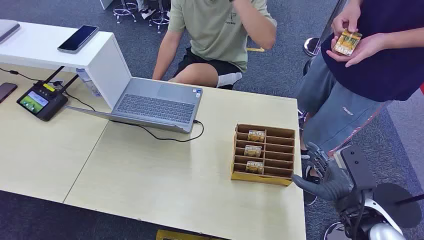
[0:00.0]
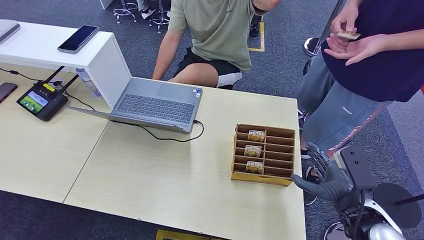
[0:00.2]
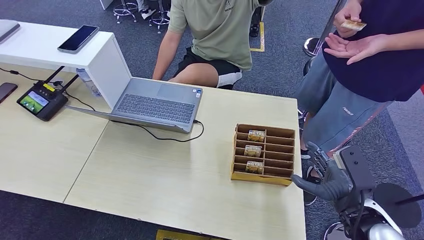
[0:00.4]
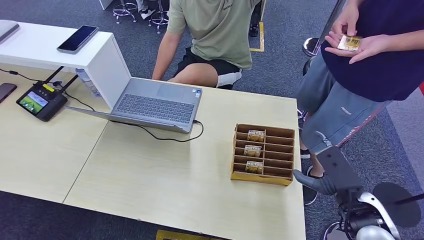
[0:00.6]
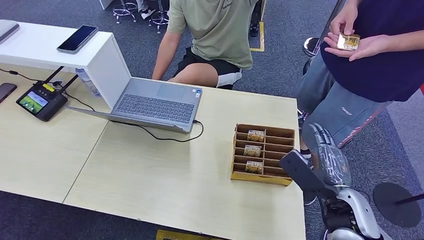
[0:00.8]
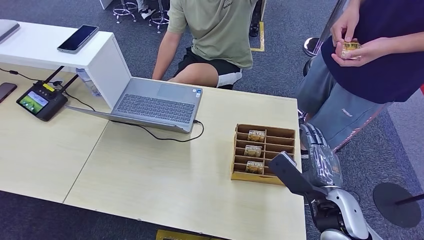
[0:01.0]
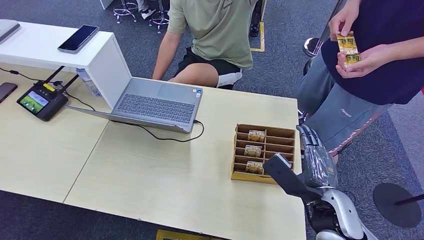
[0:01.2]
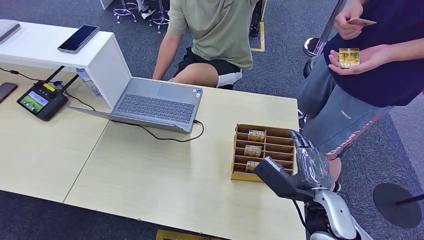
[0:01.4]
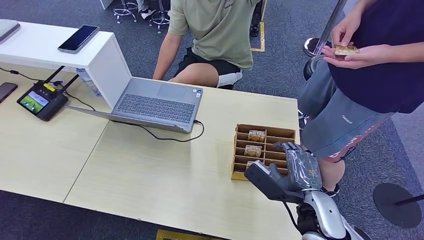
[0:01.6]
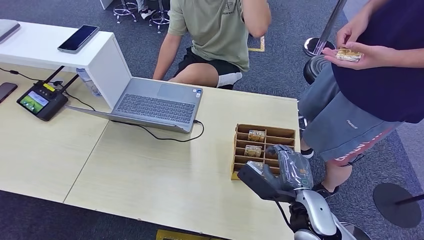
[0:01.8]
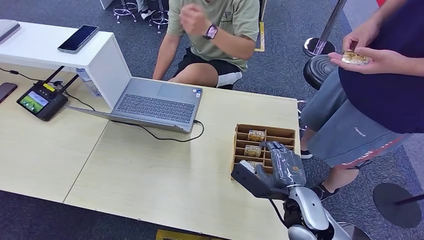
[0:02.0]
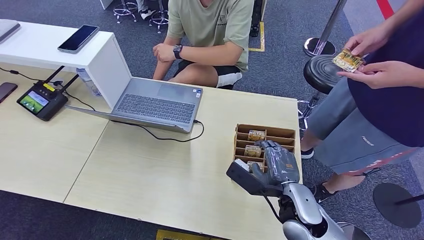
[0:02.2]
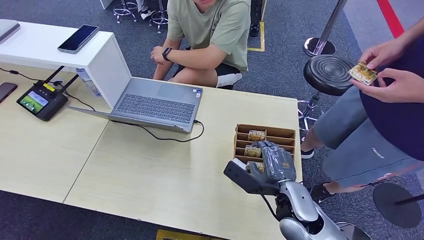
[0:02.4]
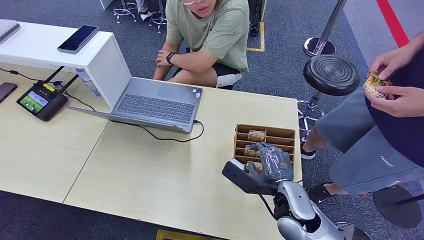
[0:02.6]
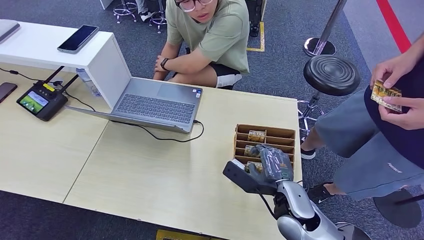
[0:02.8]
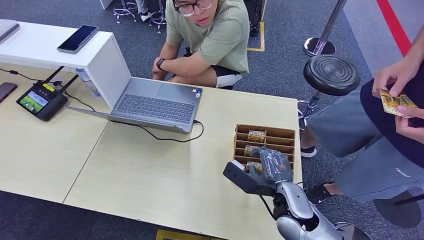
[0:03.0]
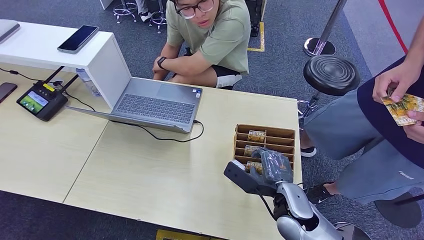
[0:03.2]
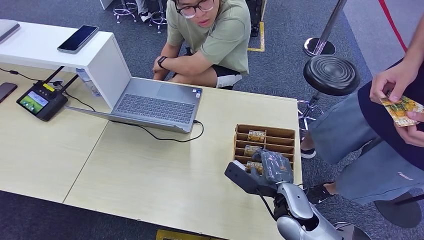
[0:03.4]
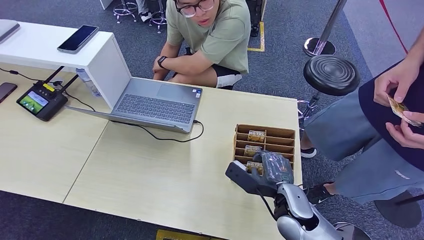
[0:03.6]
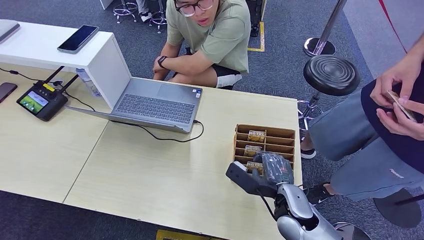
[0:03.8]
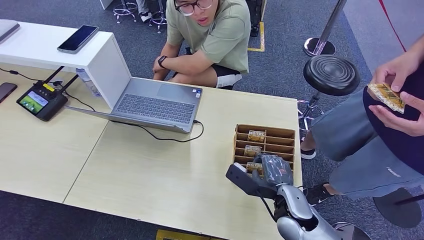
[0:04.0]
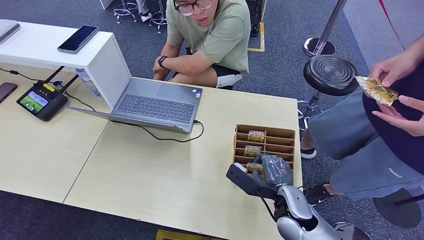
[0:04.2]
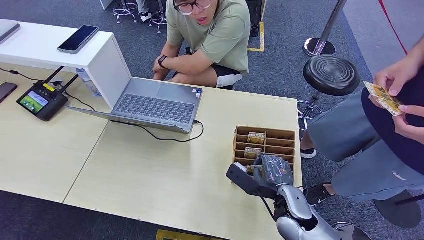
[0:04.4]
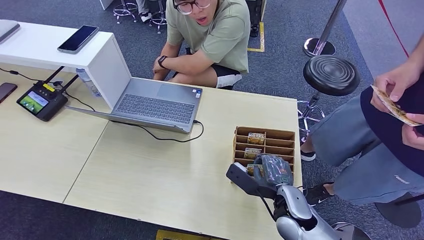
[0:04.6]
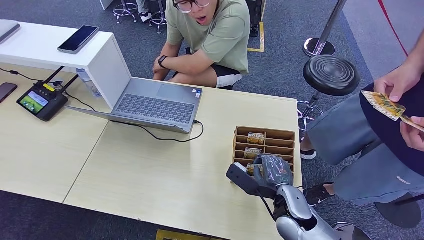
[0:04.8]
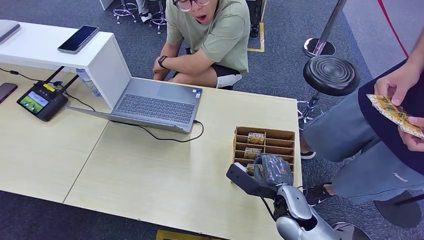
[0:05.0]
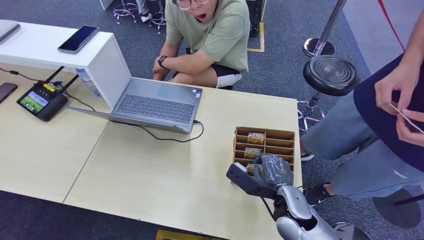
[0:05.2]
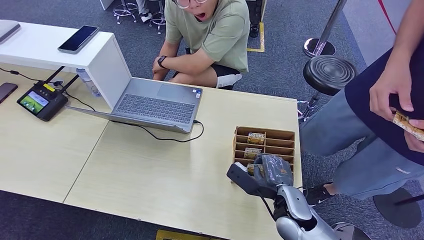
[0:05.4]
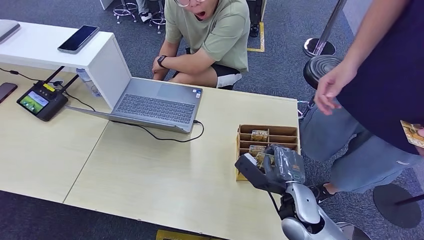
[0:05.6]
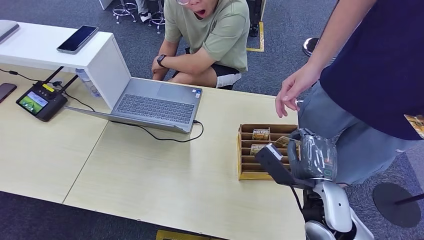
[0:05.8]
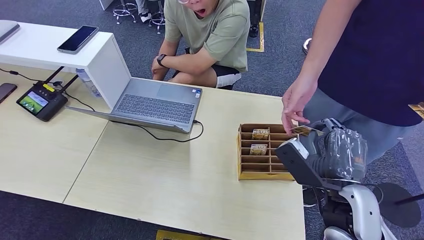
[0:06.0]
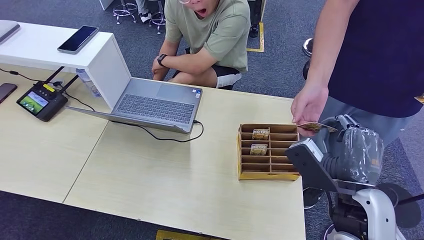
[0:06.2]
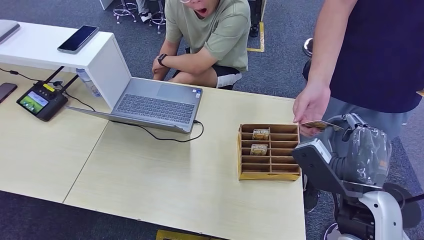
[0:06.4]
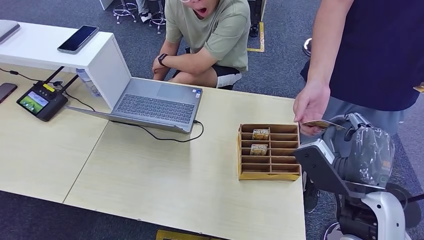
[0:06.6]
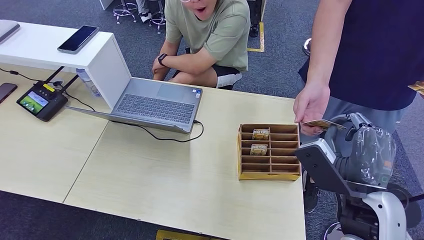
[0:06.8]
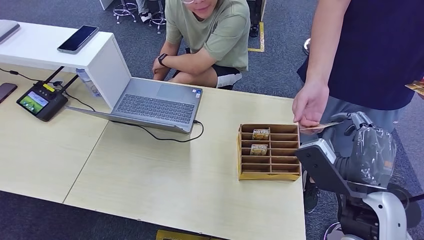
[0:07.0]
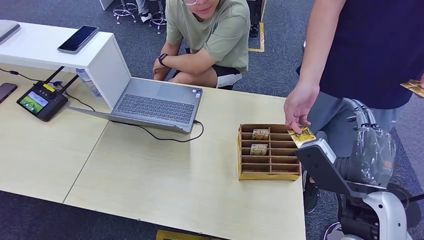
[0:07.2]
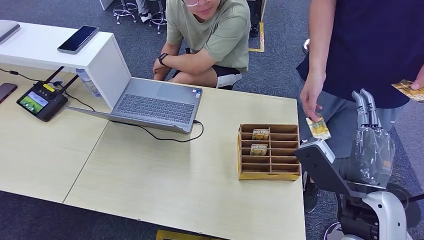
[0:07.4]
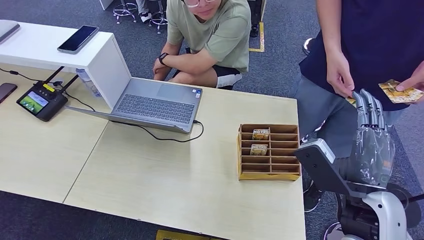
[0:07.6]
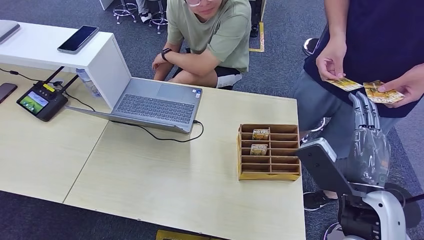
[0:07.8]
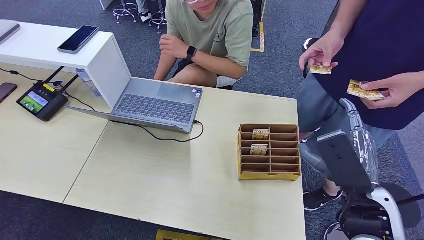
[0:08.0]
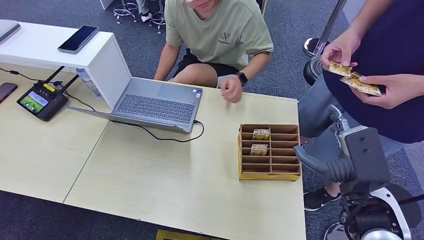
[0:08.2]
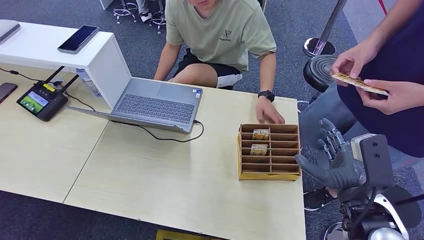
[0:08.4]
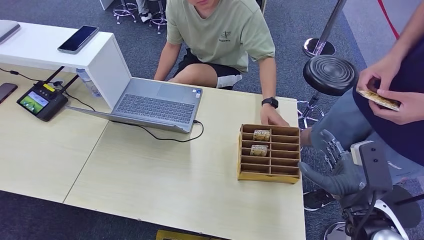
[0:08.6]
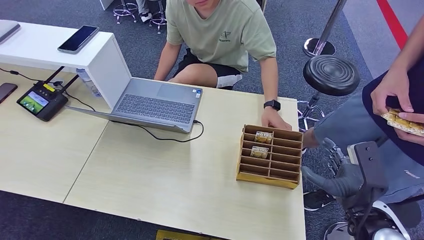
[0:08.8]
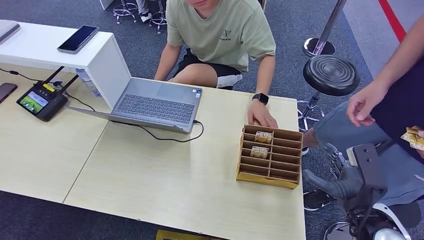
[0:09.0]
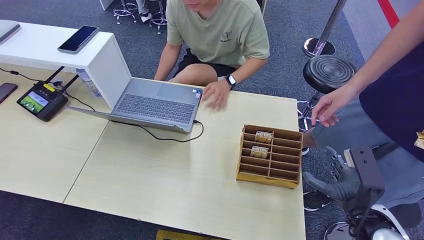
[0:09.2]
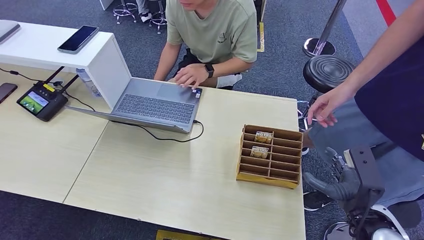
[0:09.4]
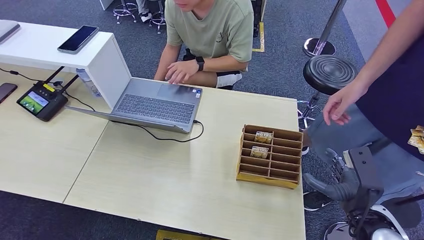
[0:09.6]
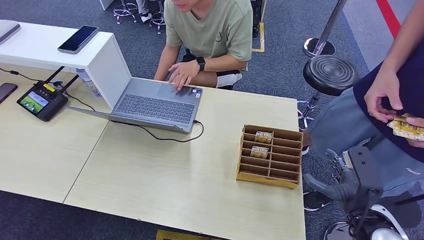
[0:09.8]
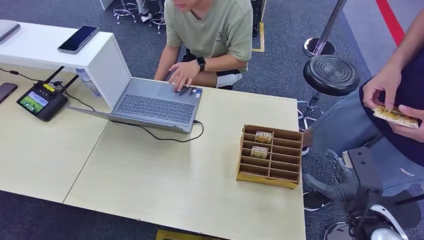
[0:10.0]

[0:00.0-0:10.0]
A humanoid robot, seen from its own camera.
Step, 0:00.0 to 0:05.4: Pick up the key card from the card box.
Step, 0:05.6 to 0:09.8: Hand the key card to the target.
0:02.8 to 0:04.2: The hands move only a little.
0:05.8 to 0:07.2: The right hand goes roughly 10 cm upward.
0:08.6 to 0:10.0: The right hand ends up some 5 cm from where it was.

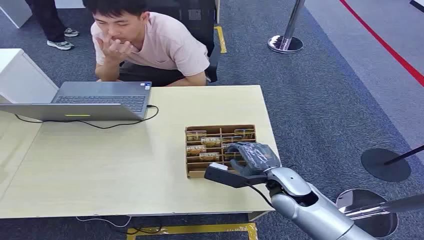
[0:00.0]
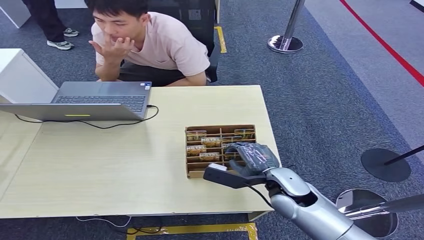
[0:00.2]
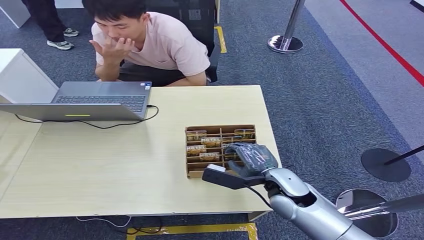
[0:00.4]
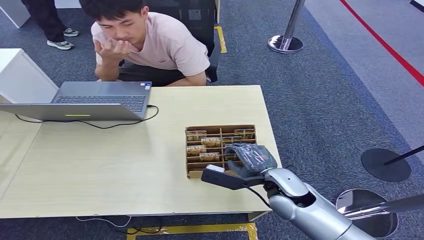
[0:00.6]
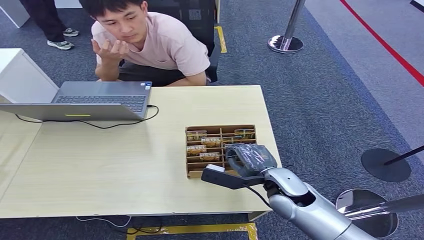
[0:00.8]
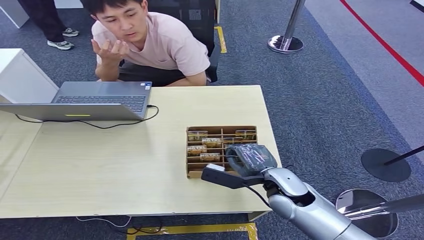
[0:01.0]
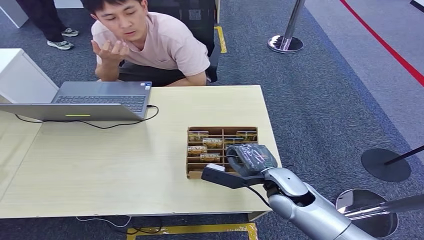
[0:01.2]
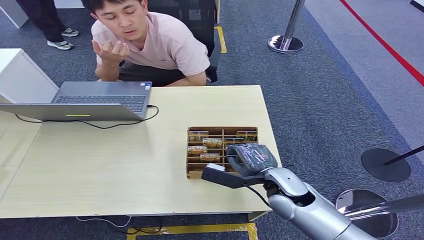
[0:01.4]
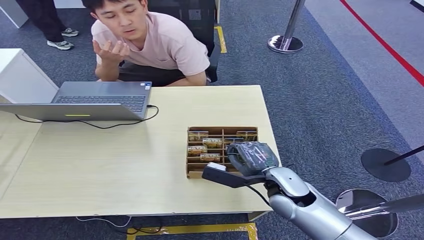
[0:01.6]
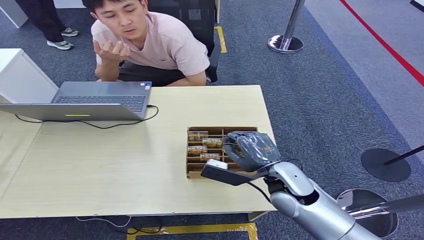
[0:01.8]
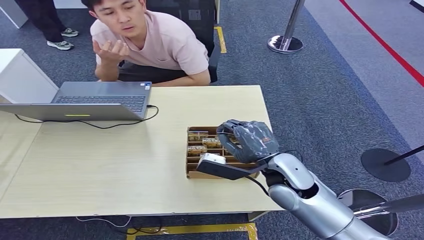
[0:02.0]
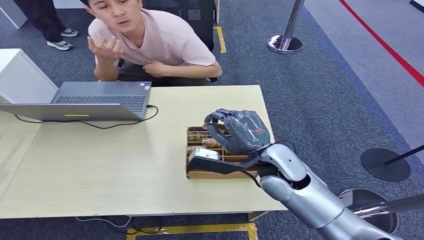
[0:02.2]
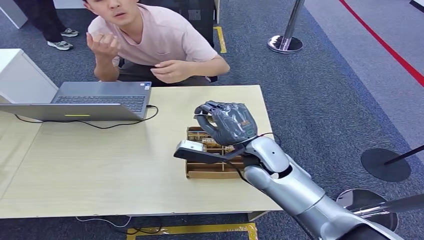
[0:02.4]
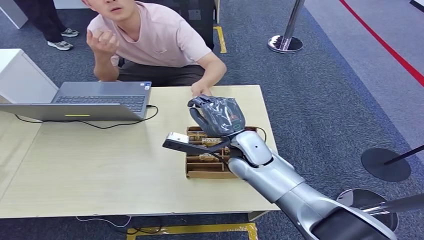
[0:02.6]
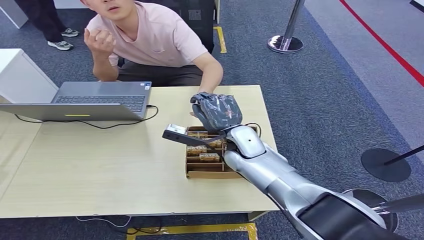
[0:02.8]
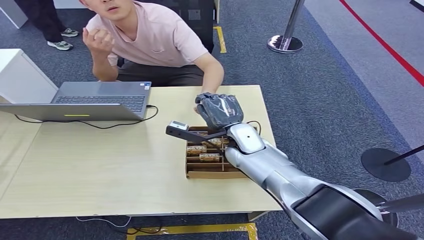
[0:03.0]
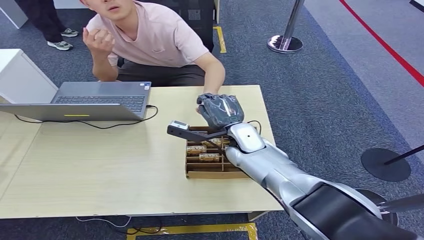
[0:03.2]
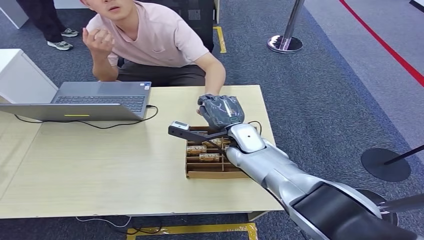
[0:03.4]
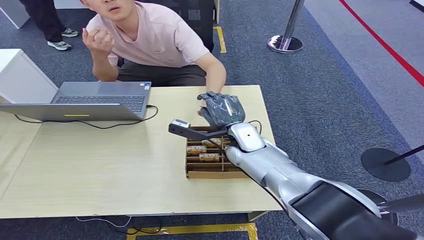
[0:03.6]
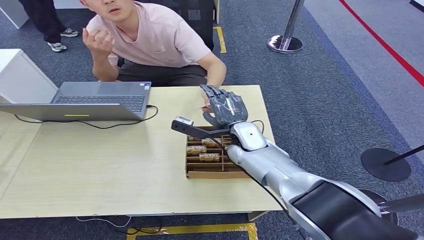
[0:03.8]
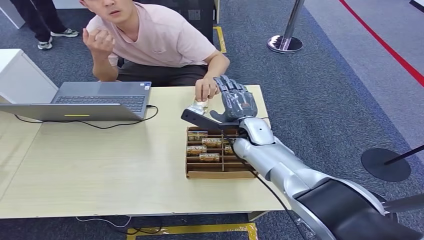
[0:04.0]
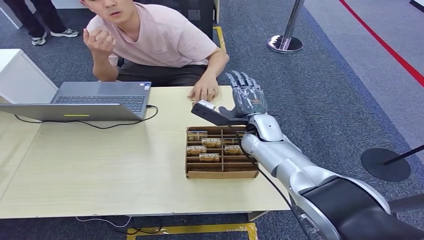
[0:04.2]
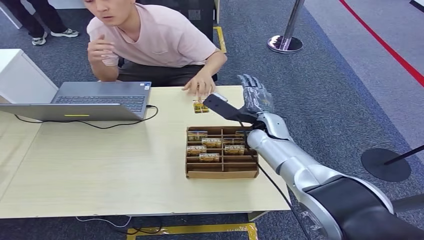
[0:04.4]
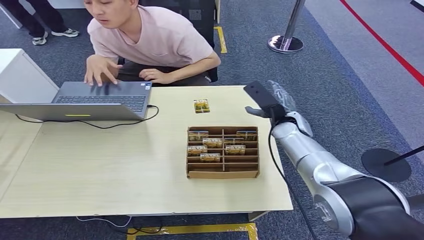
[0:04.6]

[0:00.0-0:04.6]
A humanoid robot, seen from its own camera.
Step, 0:00.0 to 0:02.0: Pick up the key card from the card box.
Step, 0:02.2 to 0:04.6: Hand the key card to the target.
0:01.6 to 0:03.0: The right hand moves forward and to the left, approximately 15 cm.
0:03.0 to 0:04.6: The right hand shifts roughly 10 cm to the right.
